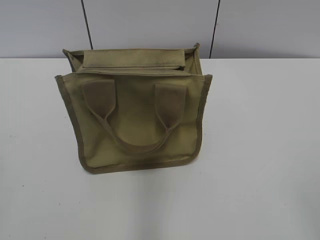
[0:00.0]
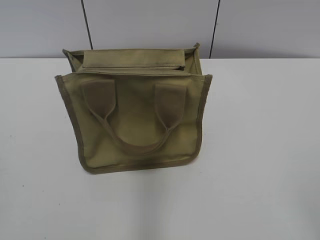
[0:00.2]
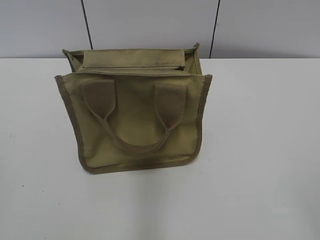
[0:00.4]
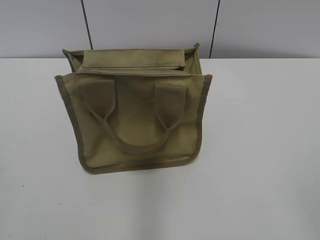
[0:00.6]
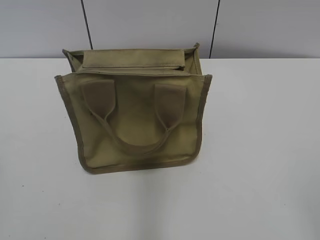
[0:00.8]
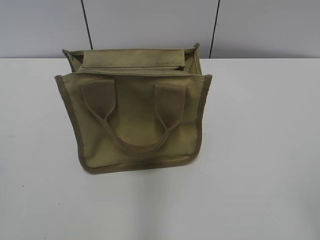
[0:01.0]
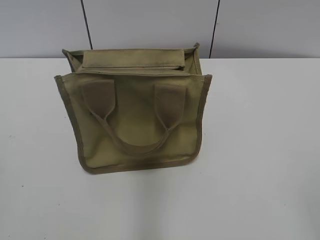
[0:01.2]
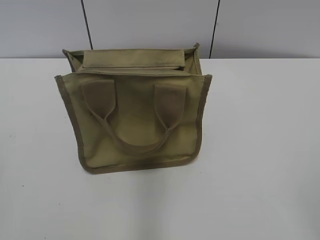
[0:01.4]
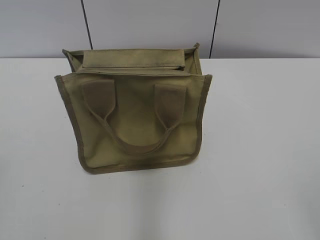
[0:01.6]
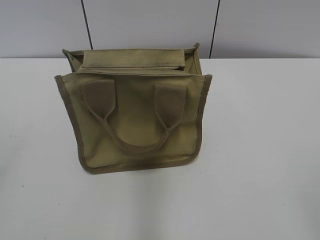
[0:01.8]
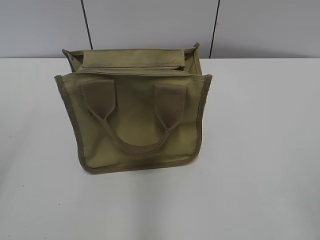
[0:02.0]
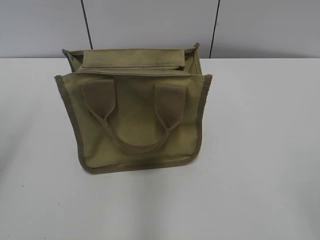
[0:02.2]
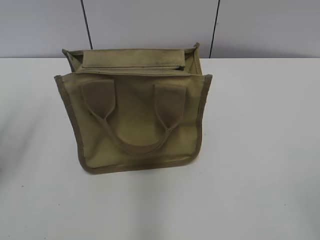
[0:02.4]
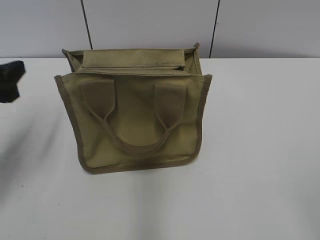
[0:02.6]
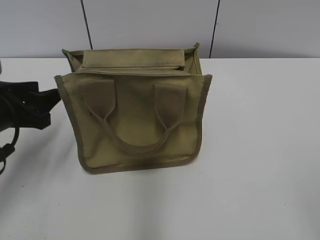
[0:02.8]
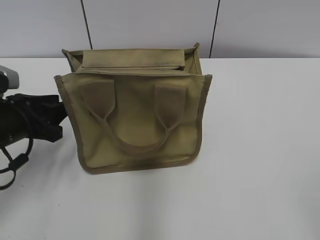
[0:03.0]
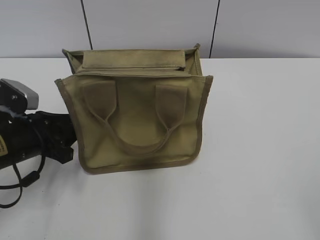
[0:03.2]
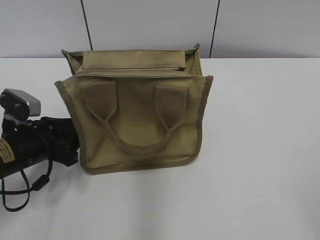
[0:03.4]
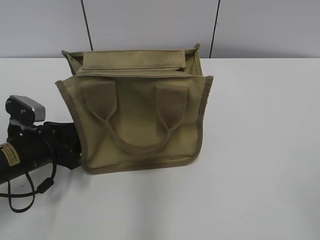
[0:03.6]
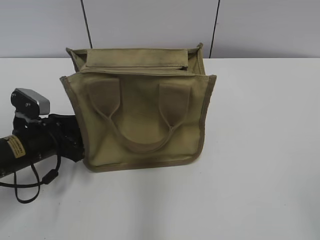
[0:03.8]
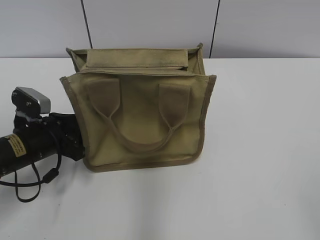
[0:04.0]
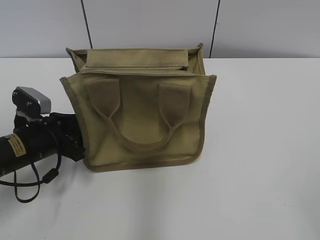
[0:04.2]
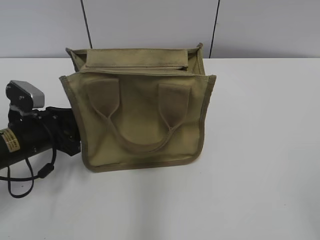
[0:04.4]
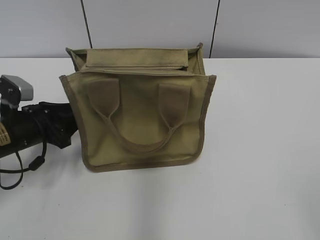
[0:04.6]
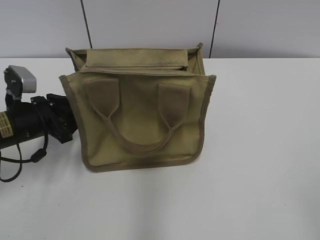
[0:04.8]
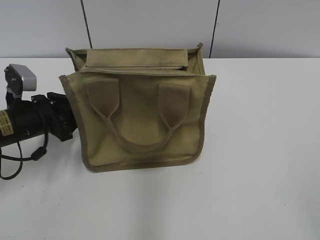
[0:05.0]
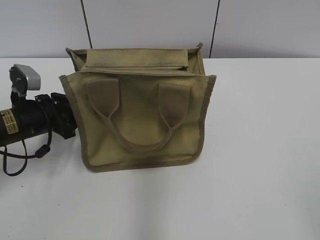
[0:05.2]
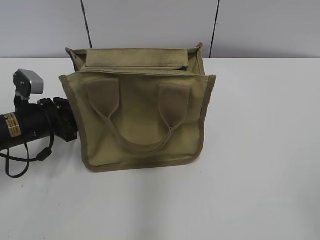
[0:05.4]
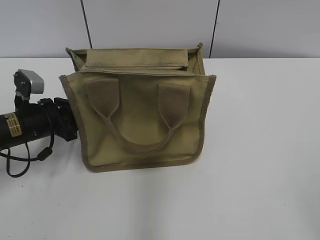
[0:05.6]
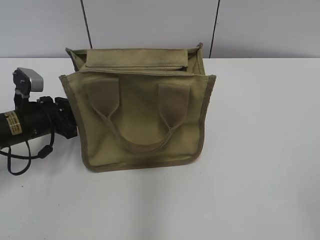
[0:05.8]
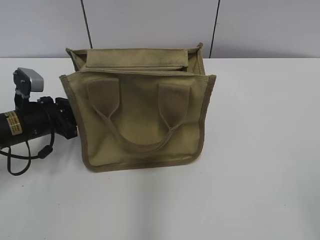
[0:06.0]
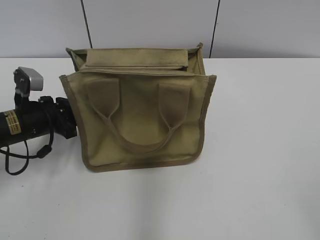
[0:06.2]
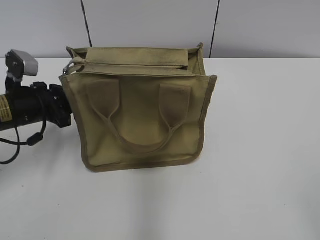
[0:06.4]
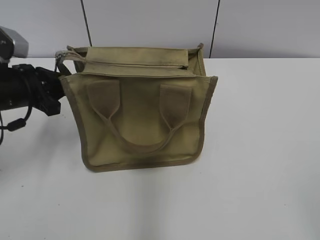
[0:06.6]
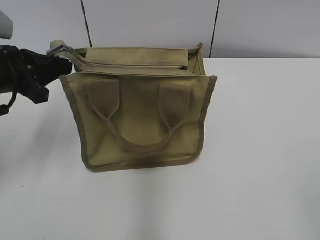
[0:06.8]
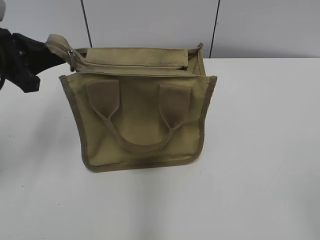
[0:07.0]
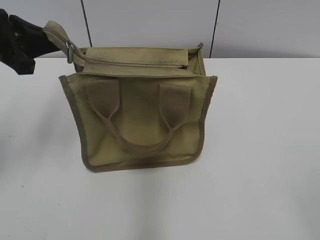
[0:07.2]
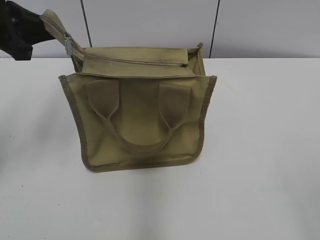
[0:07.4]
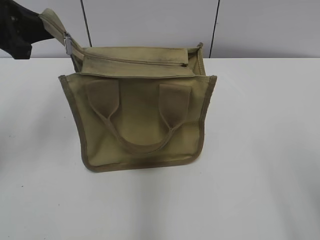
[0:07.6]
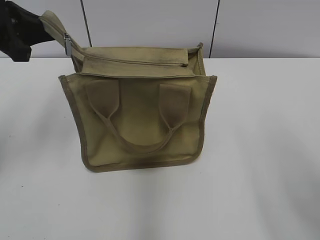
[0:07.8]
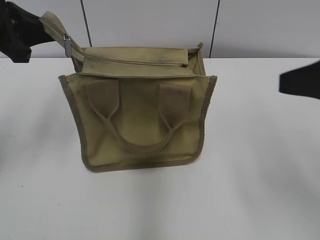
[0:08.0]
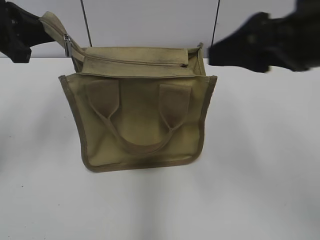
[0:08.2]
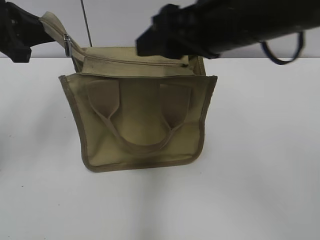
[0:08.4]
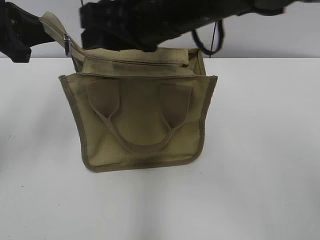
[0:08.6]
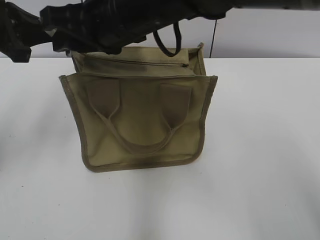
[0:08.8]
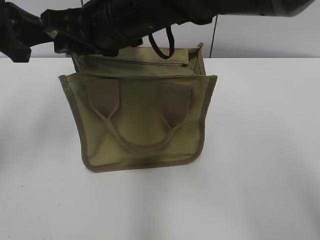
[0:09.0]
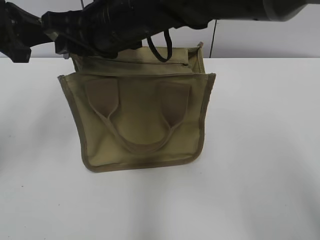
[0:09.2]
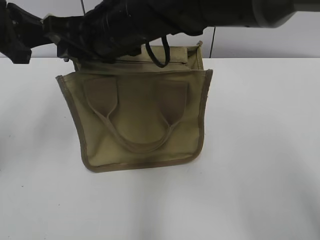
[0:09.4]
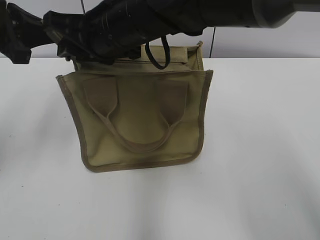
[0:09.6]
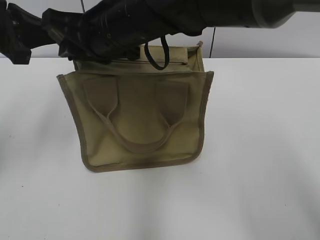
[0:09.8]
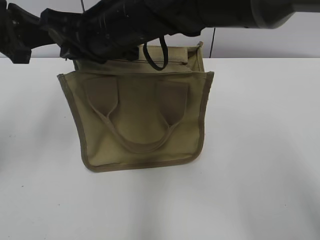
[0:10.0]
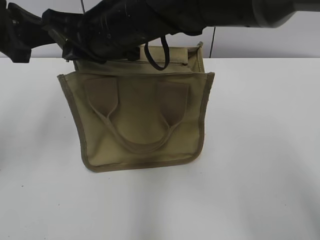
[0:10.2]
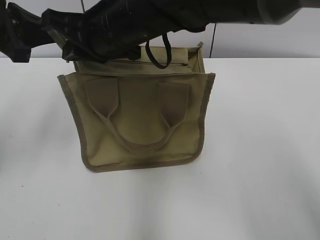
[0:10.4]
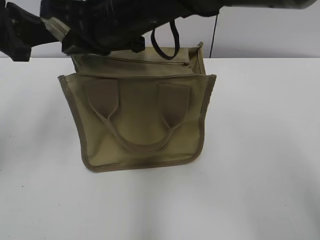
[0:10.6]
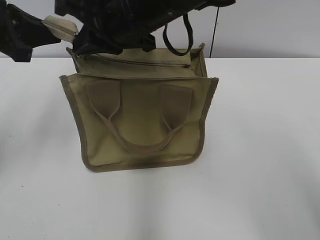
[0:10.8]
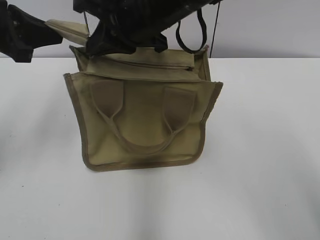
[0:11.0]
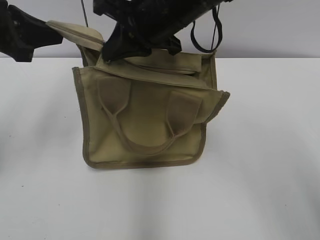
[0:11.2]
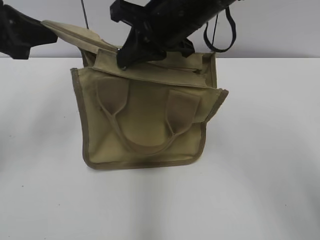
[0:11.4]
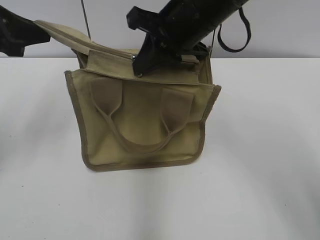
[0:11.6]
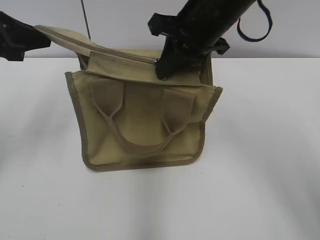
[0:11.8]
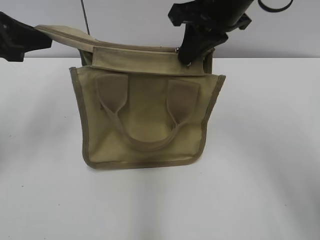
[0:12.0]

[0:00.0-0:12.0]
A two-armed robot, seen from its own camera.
0:01.6 to 0:03.0: The left gripper travels forward and downward by approximately 30 cm, and opens, then closes again.
0:03.0 to 0:04.4: The left gripper goes about 5 cm downward.
0:04.4 to 0:06.0: The left gripper closes up.
0:06.0 to 0:07.6: The right gripper moves roughly 5 cm, while the left gripper moves upward, about 20 cm.
0:07.6 to 0:09.0: The right gripper heads to the left and forward, covering approximately 40 cm, and closes.
0:09.0 to 0:10.4: The right gripper closes its fingers.
0:10.4 to 0:12.0: The right gripper is displaced to the right by about 15 cm.

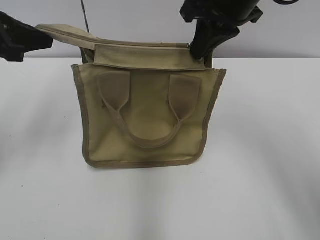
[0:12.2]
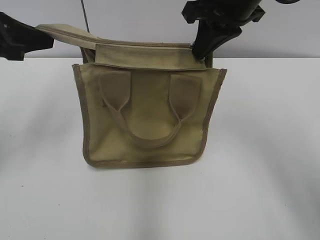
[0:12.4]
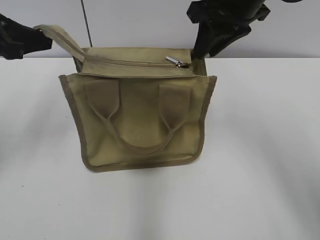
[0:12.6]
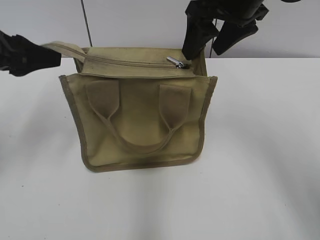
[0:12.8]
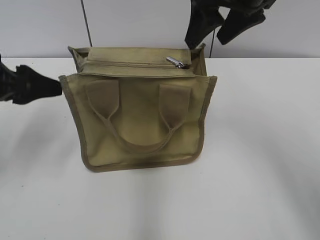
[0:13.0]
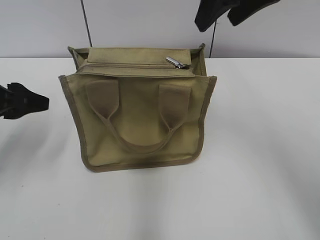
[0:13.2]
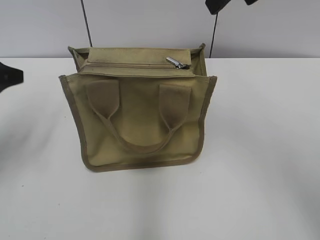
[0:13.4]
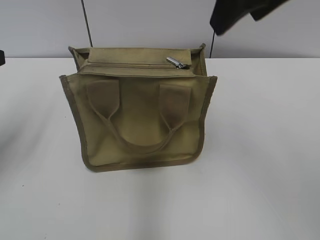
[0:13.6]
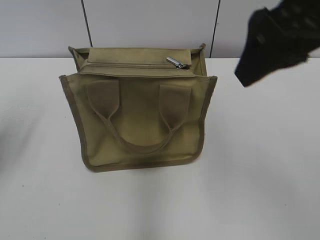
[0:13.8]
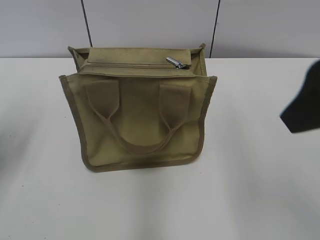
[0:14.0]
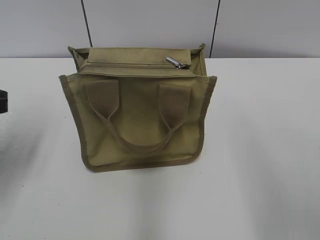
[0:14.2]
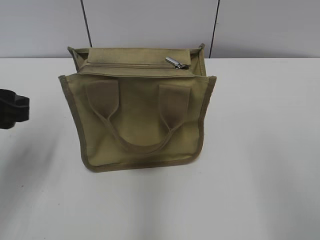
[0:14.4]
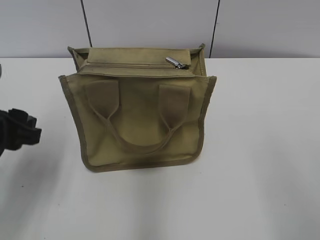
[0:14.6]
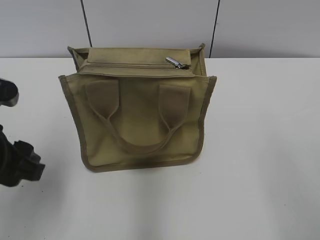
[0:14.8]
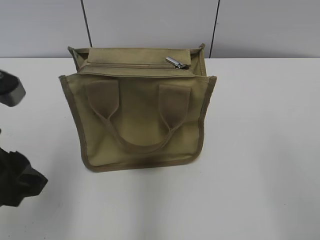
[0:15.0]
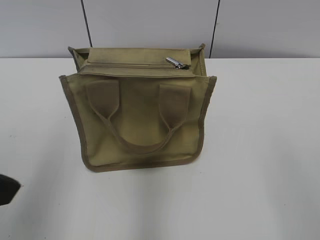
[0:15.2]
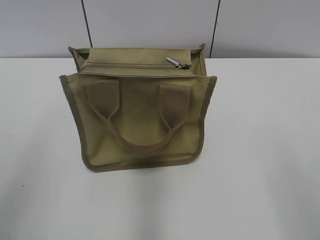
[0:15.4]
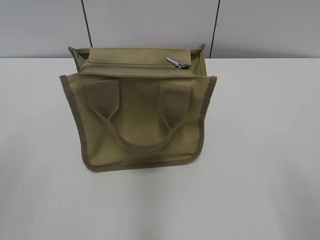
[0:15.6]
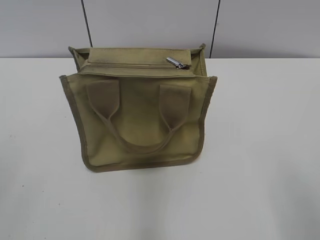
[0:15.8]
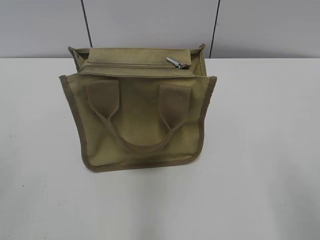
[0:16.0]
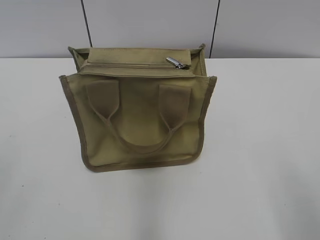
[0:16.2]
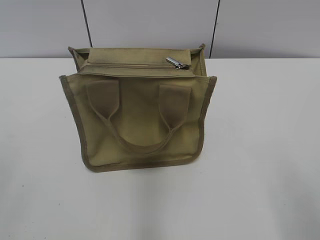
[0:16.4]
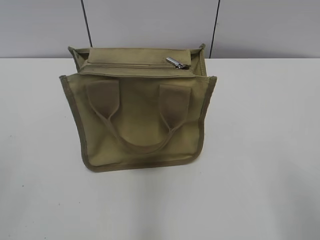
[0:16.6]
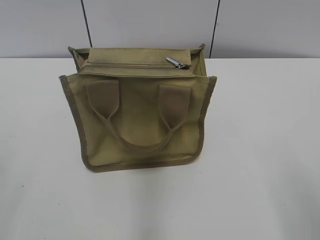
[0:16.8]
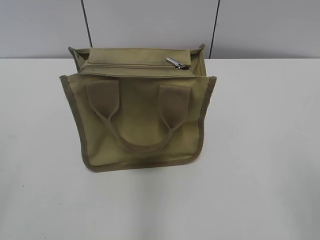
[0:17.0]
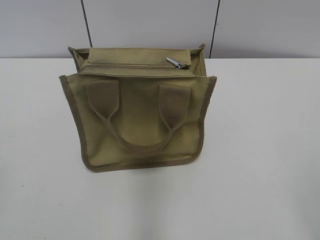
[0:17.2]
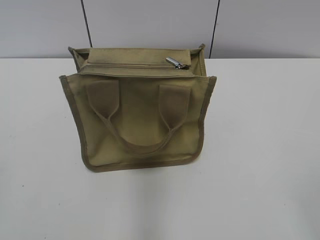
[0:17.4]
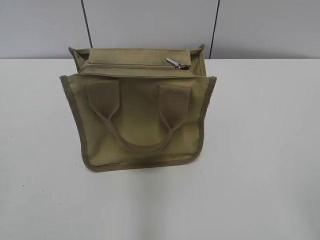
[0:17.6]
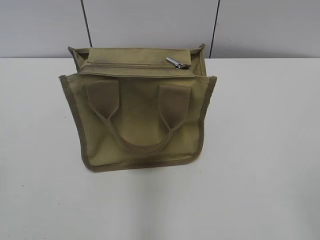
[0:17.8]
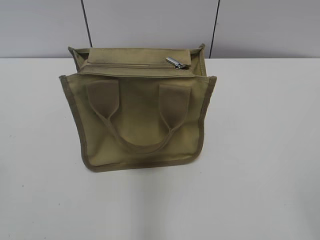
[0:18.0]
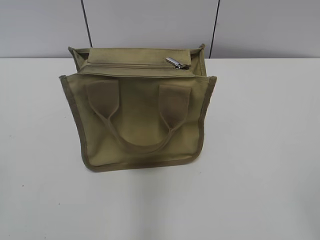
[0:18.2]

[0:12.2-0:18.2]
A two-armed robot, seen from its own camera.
Step, 0:12.6 to 0:12.8: Grab the zipper with your left hand.
0:12.2 to 0:13.8: The right gripper shifts about 15 cm backward and upward, and opens up, while the left gripper heads backward, covering approximately 5 cm, moves approximately 10 cm downward and comes back, and opens up.
0:13.8 to 0:15.2: The two grippers go roughly 20 cm backward and to the right.
0:15.2 to 0:16.6: The left gripper shifts roughly 15 cm to the left and backward.

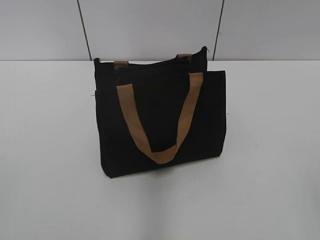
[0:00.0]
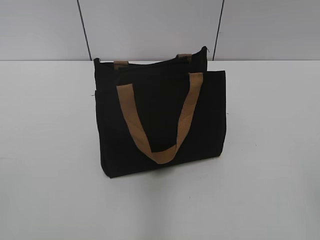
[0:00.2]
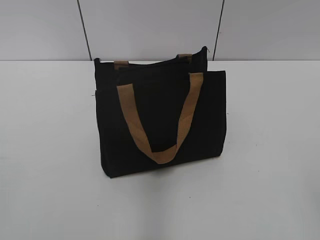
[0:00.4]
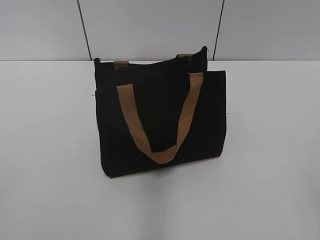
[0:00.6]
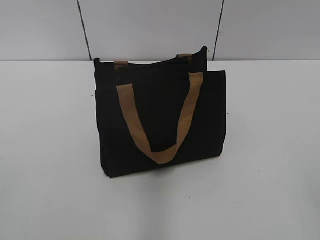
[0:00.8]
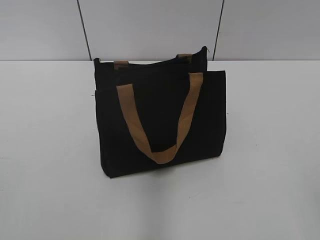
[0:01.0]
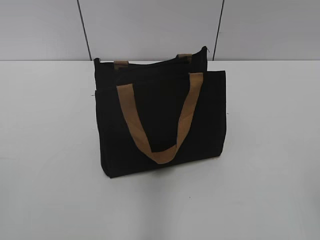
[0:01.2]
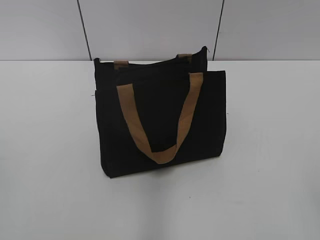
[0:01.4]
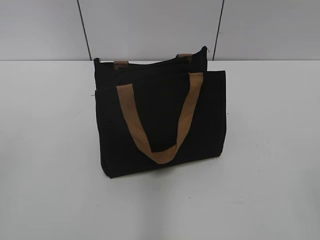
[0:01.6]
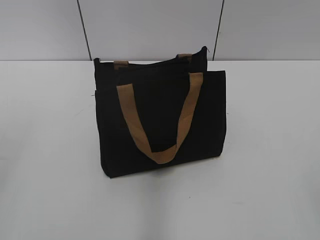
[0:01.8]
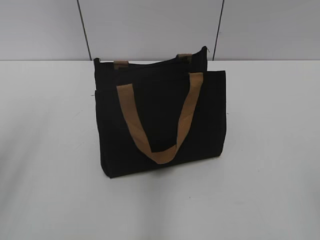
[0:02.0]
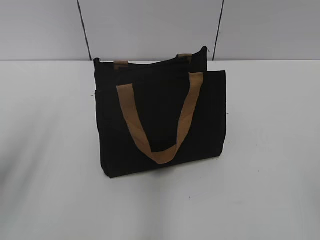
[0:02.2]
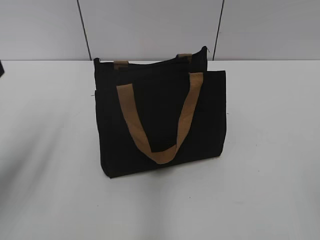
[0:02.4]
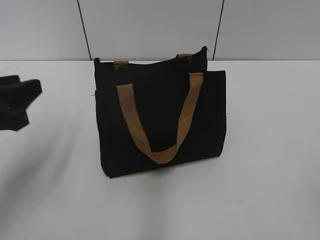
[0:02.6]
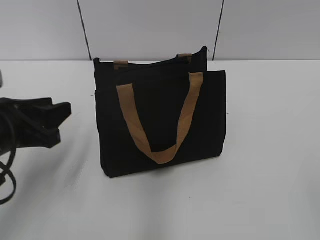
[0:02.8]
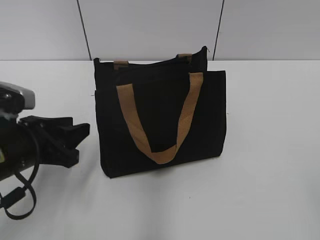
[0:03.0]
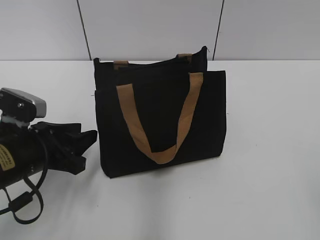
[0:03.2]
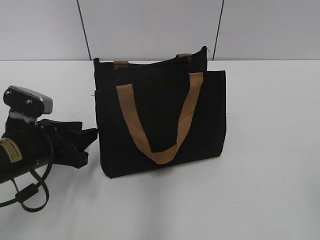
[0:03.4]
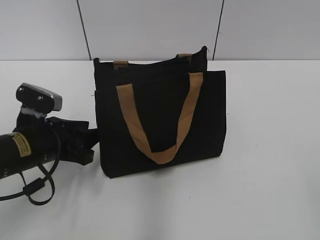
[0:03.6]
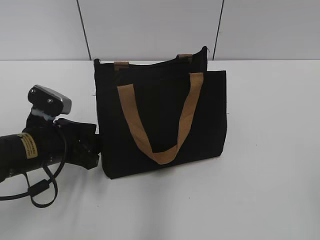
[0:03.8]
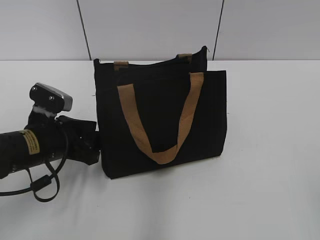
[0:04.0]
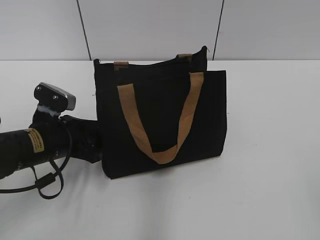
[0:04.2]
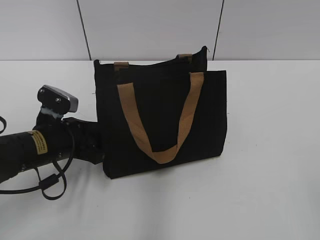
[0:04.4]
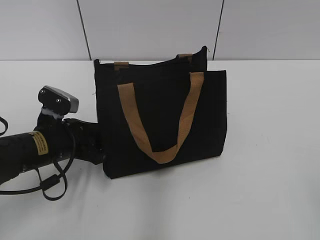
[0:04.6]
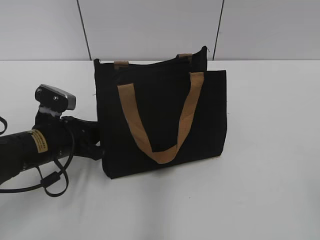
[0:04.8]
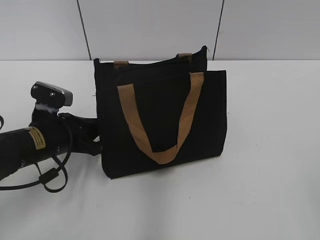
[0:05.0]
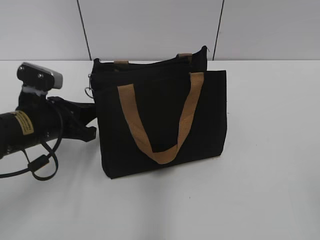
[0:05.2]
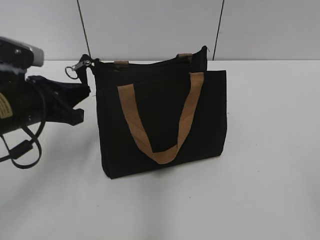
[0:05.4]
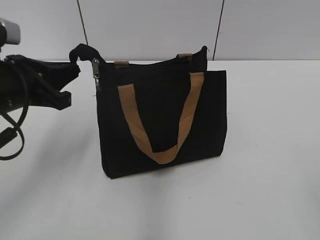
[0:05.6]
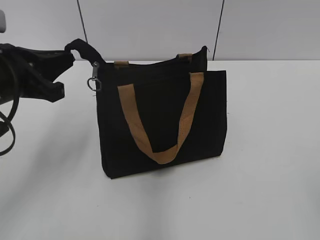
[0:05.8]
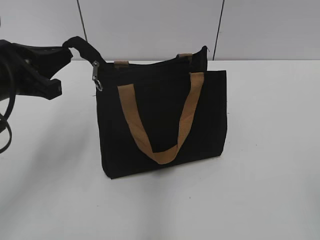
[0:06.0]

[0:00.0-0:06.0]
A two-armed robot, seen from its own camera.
0:01.6 to 0:03.0: The left gripper travels downward, forward and to the right by approximately 25 cm.
0:03.0 to 0:04.4: The left gripper travels forward and downward by roughly 10 cm.
0:04.4 to 0:06.0: The left gripper travels upward by some 15 cm, and closes its fingers.
